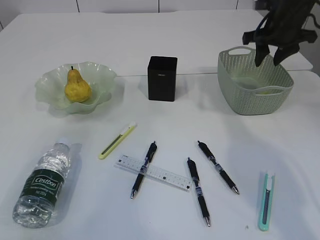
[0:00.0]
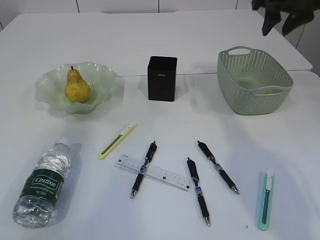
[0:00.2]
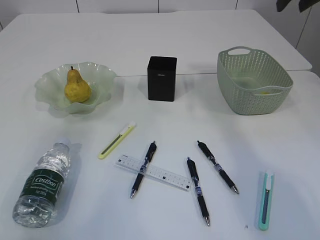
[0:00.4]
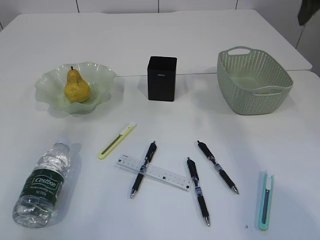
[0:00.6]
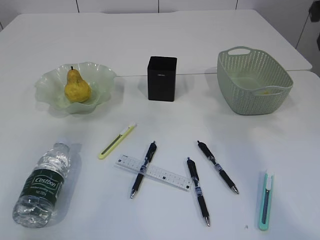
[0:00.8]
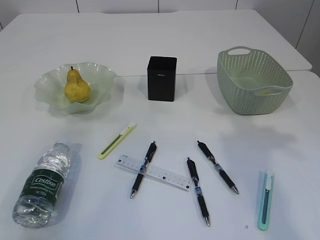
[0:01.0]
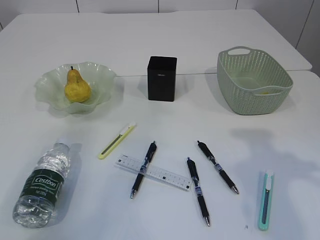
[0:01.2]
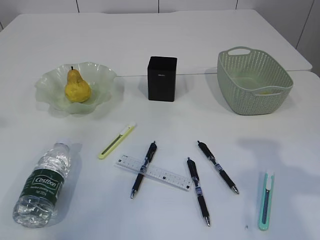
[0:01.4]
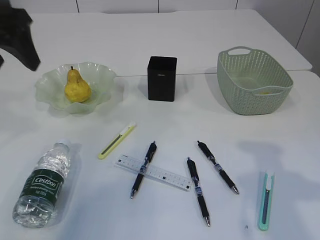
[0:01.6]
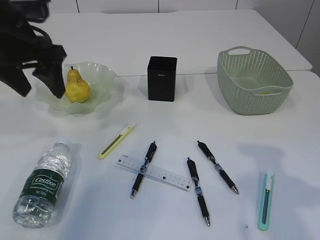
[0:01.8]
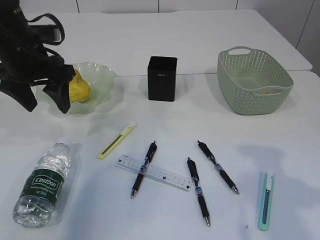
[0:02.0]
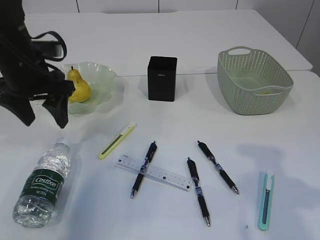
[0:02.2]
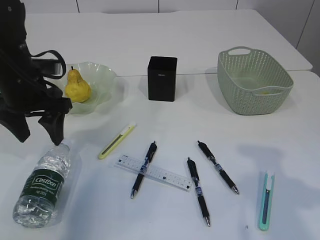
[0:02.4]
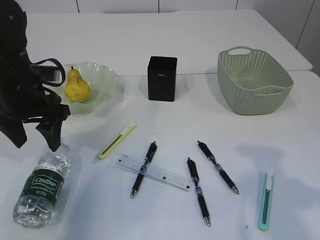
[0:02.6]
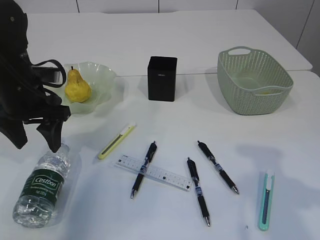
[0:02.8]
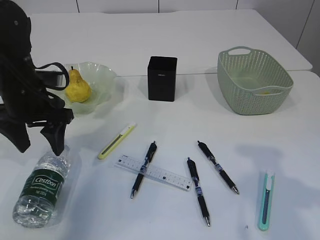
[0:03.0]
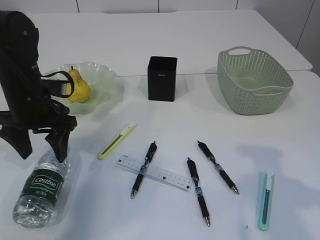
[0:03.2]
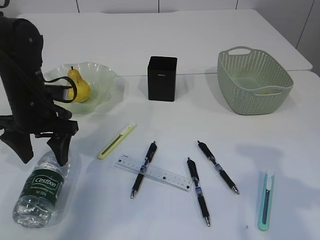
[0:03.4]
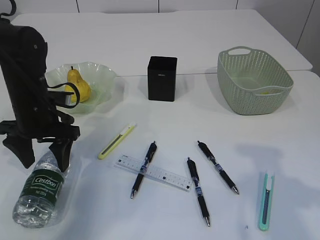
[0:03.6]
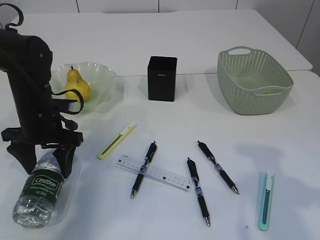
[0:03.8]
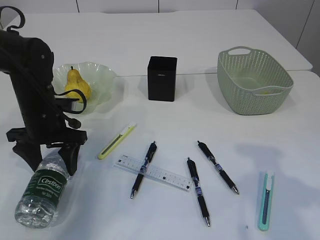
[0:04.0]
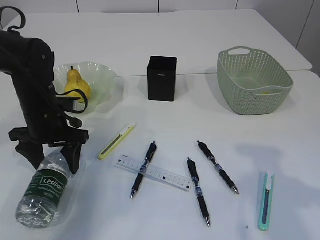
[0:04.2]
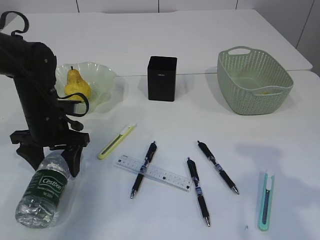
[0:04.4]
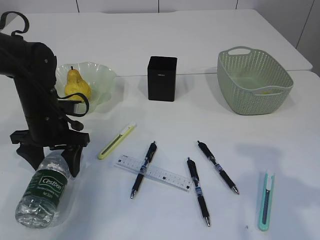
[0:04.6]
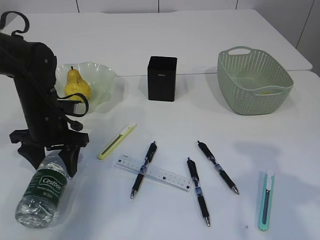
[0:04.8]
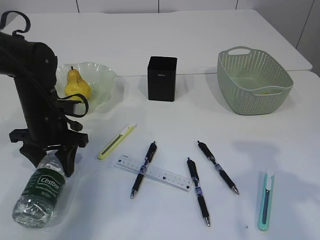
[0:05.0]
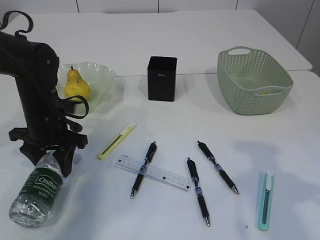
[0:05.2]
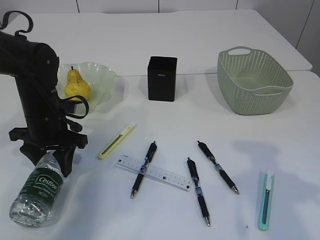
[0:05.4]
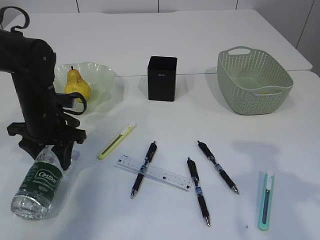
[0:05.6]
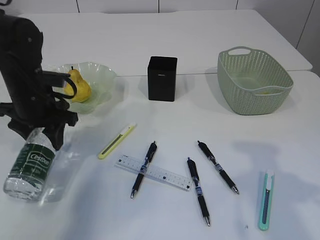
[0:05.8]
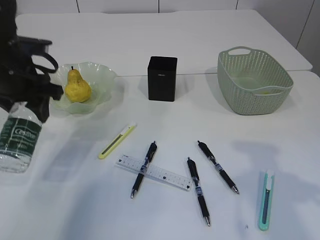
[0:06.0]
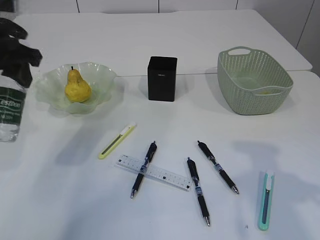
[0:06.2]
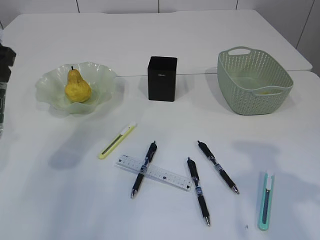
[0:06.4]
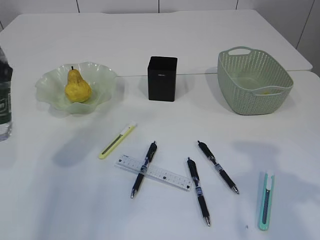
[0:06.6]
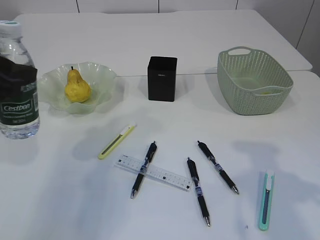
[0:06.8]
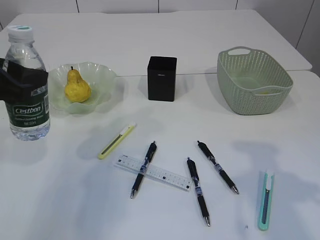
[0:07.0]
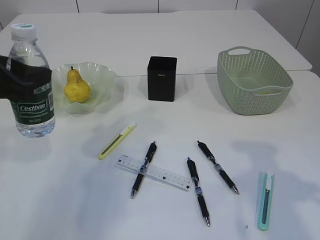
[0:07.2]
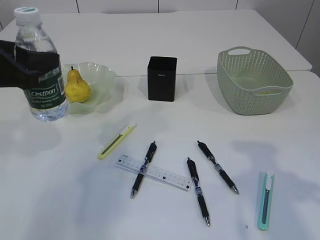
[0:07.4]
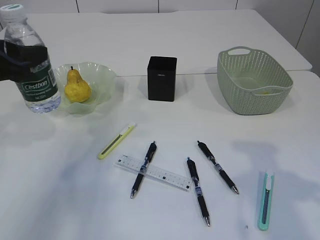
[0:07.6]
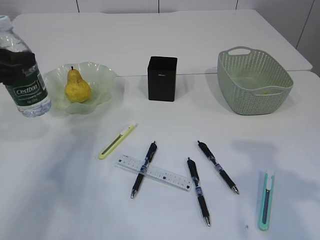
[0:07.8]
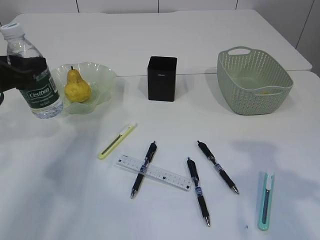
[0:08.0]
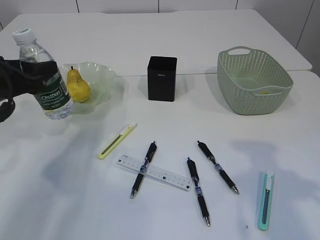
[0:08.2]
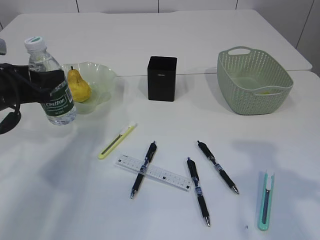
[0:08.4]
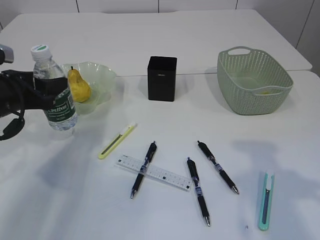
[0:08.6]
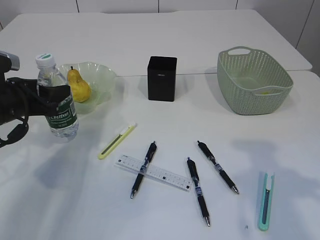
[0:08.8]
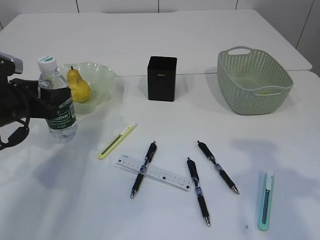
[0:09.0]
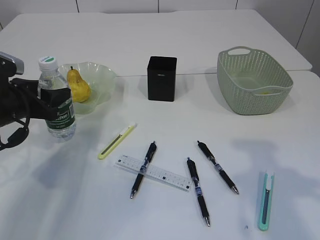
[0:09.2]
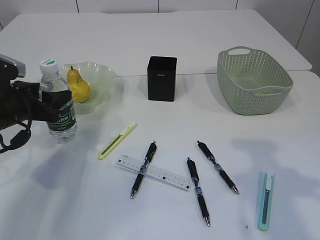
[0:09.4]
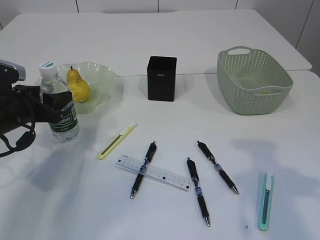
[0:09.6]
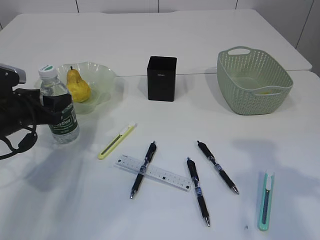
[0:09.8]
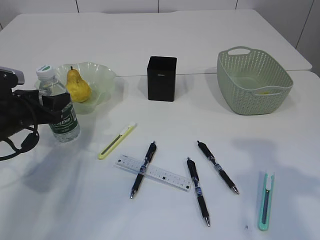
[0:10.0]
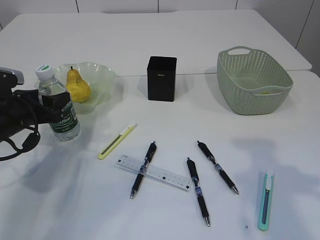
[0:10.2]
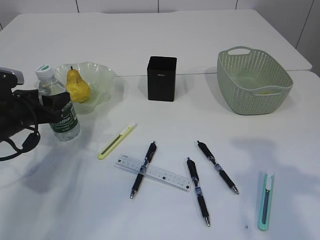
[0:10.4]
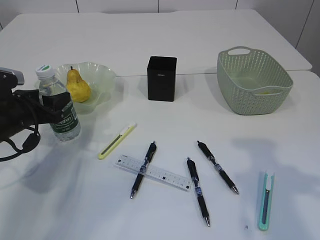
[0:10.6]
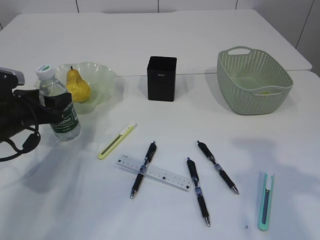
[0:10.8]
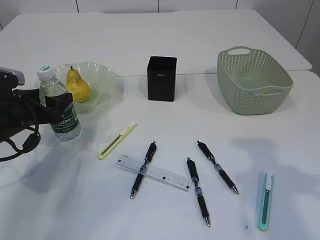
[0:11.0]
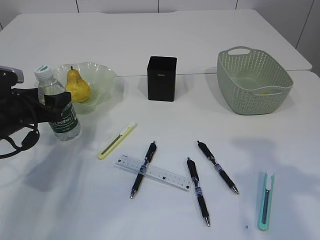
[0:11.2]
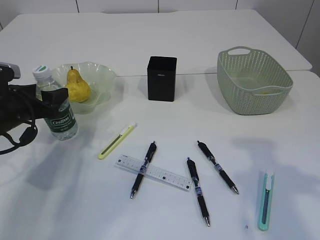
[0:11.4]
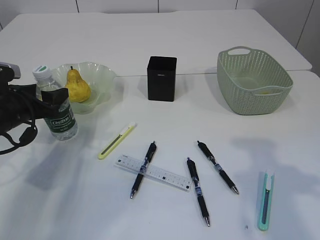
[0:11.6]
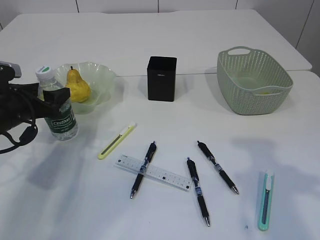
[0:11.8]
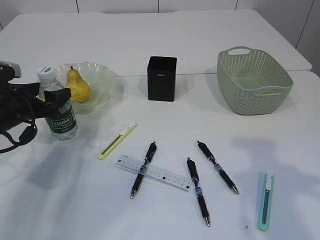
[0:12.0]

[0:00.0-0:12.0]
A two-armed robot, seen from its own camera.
Step, 0:00.4 to 0:05.8: Pick up the bottle with the left arm.
0:00.0 to 0:01.6: The left gripper is displaced to the right by roughly 10 cm. The right gripper moves backward, some 30 cm.
0:01.6 to 0:03.0: The left gripper is displaced downward by approximately 15 cm.
0:03.0 to 0:04.4: The left gripper is displaced downward by roughly 5 cm.
0:04.4 to 0:06.0: The left gripper is displaced upward by roughly 10 cm, and closes its fingers.
0:06.0 to 0:07.6: The left gripper travels backward by about 10 cm.
0:07.6 to 0:09.0: The left gripper goes approximately 10 cm downward and forward.
0:09.0 to 0:10.4: The grippers stay close to where they were, moving slightly.
0:10.4 to 0:12.0: The left gripper opens its fingers.

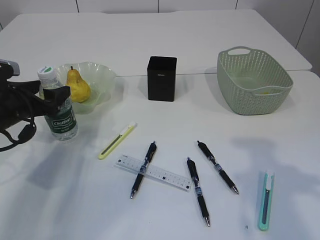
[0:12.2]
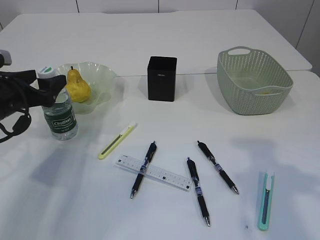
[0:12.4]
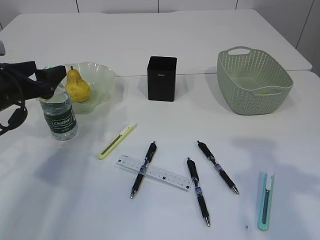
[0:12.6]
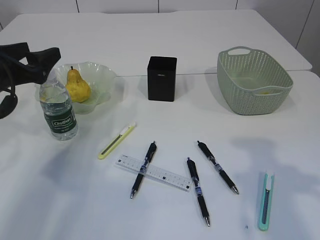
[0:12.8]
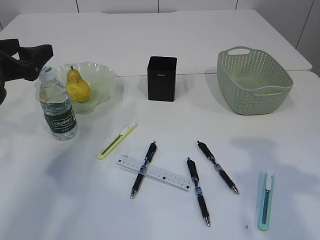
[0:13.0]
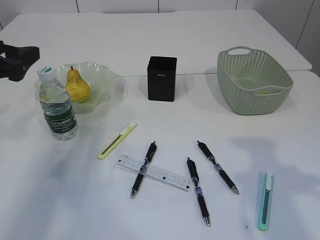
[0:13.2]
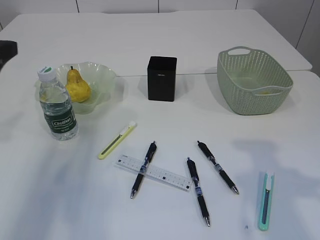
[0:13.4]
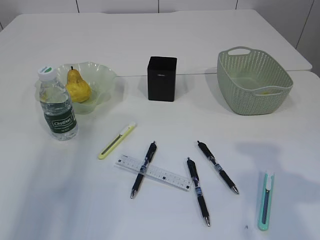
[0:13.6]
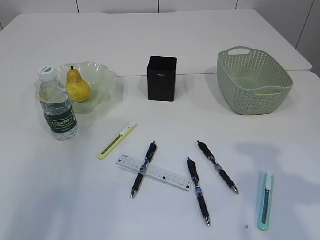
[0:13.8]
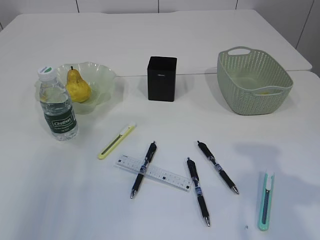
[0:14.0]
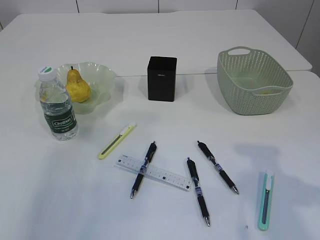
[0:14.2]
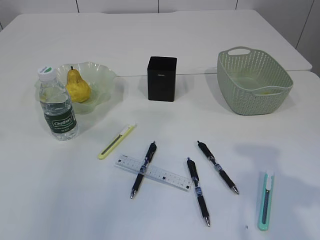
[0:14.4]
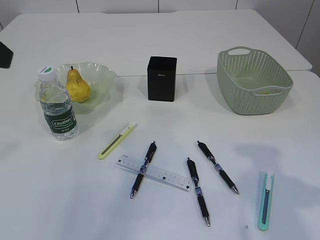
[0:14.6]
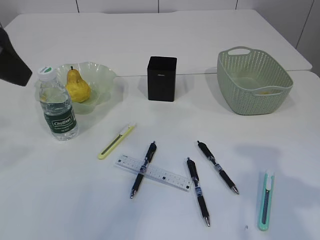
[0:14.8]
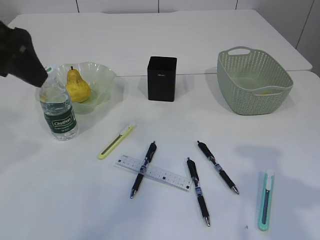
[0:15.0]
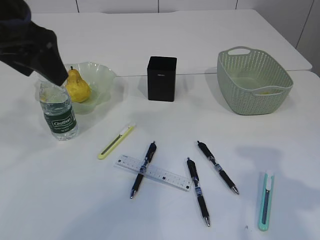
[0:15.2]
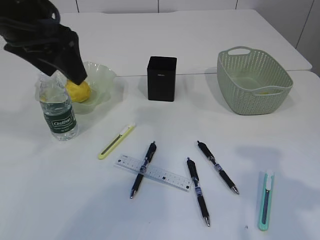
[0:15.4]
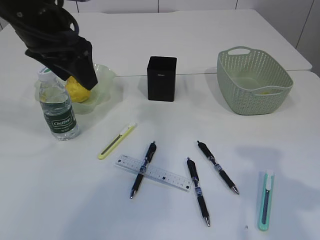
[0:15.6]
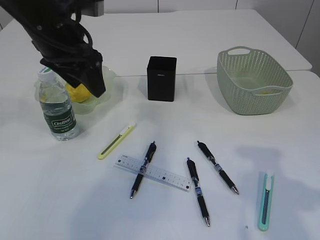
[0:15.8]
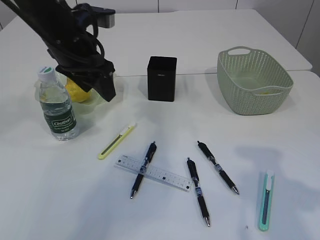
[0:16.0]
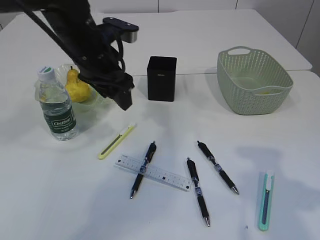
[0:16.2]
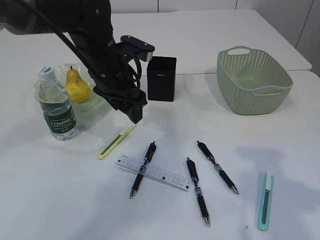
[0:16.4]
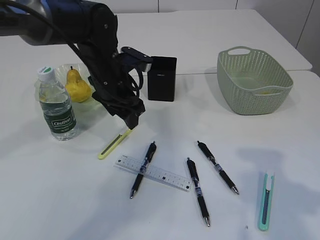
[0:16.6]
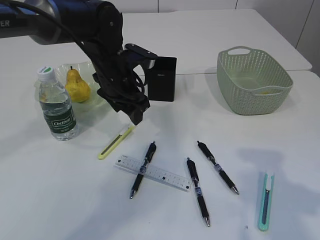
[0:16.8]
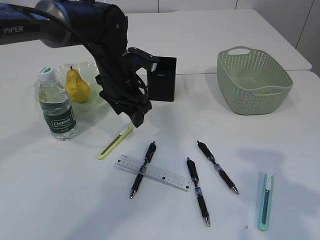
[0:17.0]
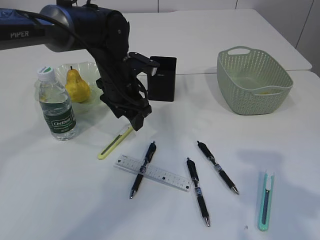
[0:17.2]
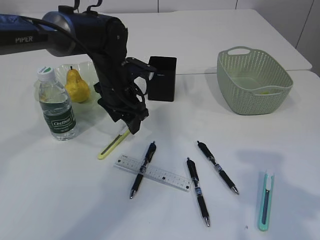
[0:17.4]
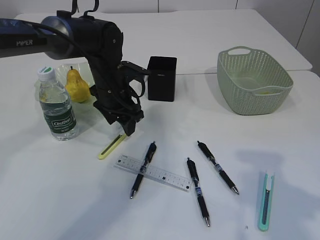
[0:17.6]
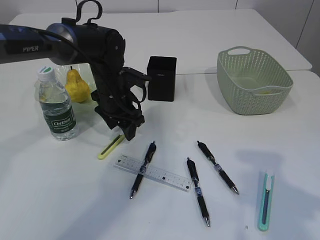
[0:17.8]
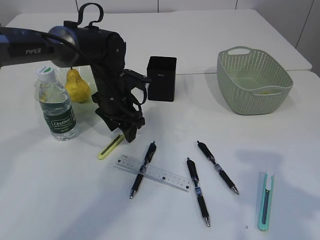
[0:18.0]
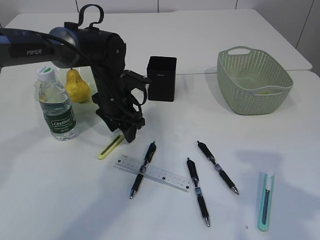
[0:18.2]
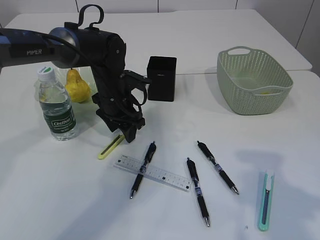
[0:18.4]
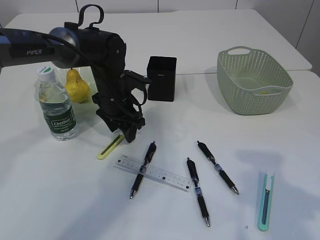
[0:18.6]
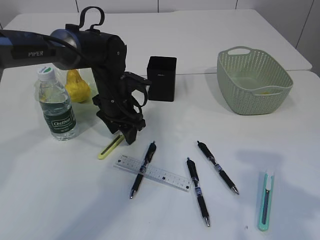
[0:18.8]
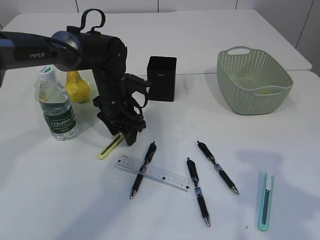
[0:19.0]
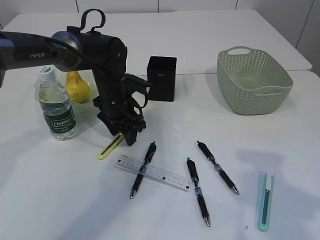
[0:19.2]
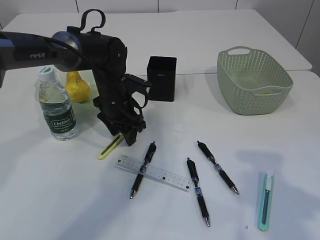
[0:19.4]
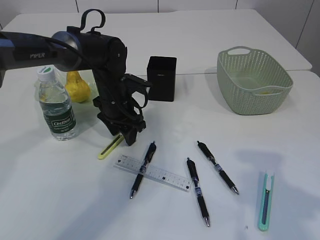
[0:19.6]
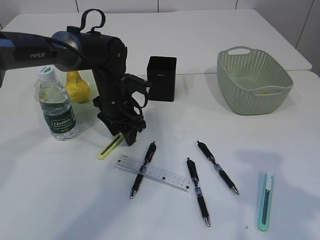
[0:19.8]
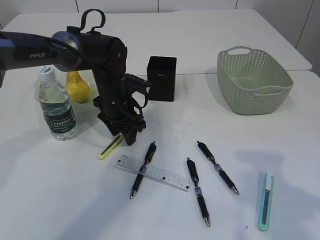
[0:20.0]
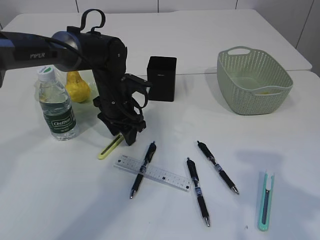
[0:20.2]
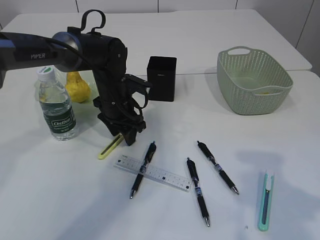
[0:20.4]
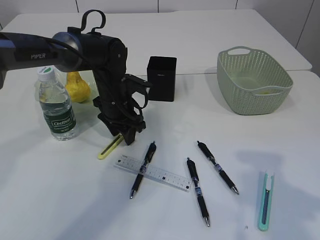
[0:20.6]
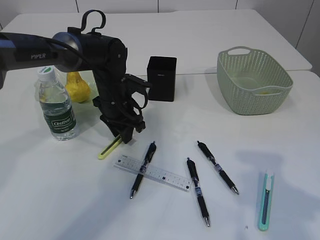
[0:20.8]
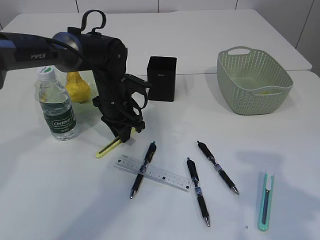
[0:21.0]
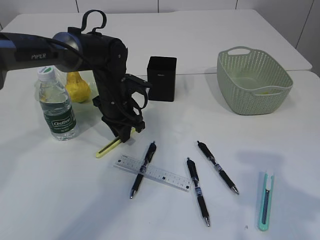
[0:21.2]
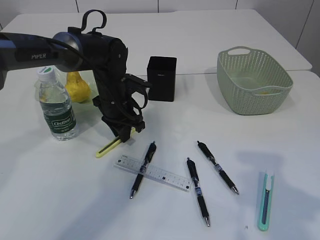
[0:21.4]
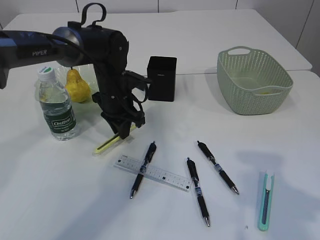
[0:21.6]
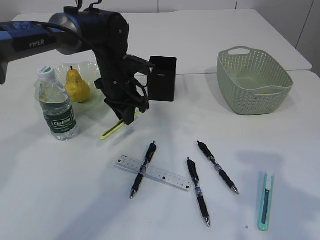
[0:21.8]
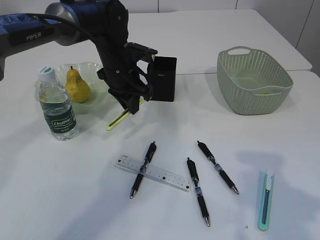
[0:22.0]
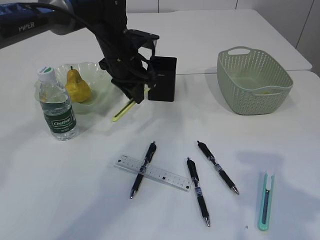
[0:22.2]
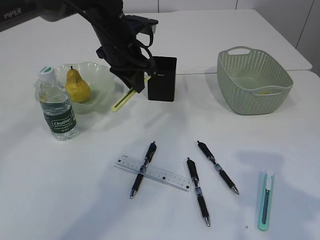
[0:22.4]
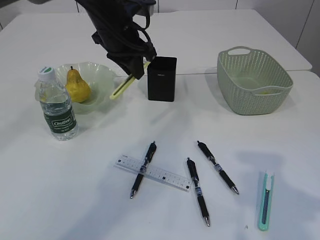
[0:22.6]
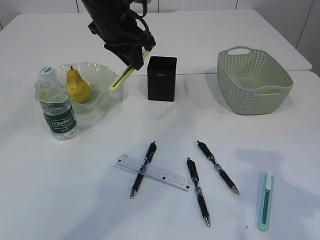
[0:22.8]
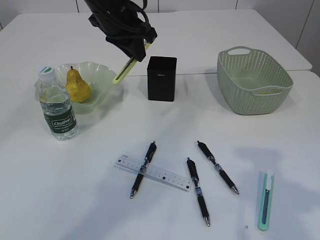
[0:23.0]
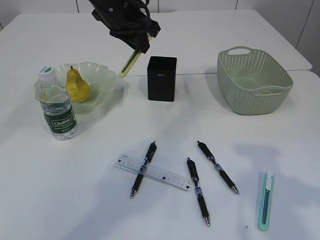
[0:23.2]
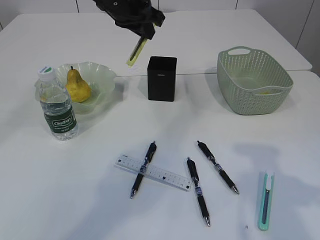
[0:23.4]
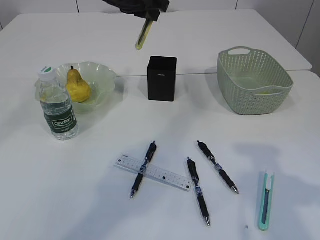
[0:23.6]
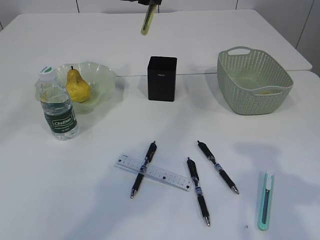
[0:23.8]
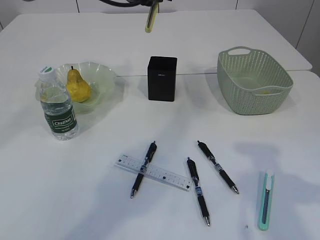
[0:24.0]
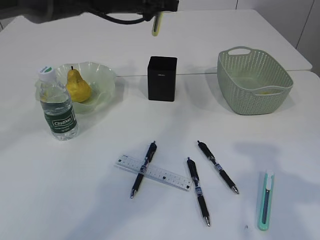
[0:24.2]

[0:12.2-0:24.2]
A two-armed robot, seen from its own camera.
Step, 0:13.2 to 0:21.8: pick up the yellow knife.
0:12.2 to 0:13.8: The left gripper travels upward and backward by about 20 cm.
0:13.8 to 0:15.2: The left gripper travels to the right and forward by some 15 cm.
0:15.2 to 0:16.6: The left gripper shifts about 20 cm downward, forward and to the right.
0:16.6 to 0:18.2: The left gripper shifts approximately 5 cm downward.
0:18.2 to 0:19.8: The two grippers keep their place.
0:19.8 to 0:21.2: The left gripper closes its fingers.
0:21.2 to 0:22.6: The left gripper heads upward, covering about 15 cm.
0:22.6 to 0:24.2: The left gripper ends up roughly 5 cm from where it was.
